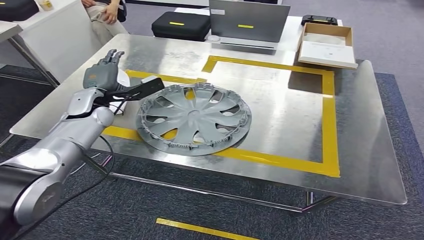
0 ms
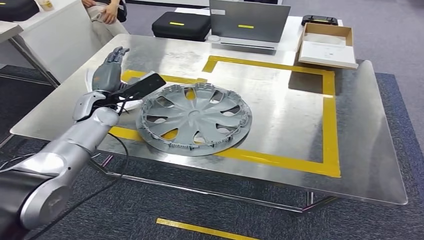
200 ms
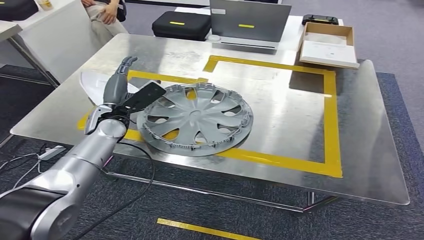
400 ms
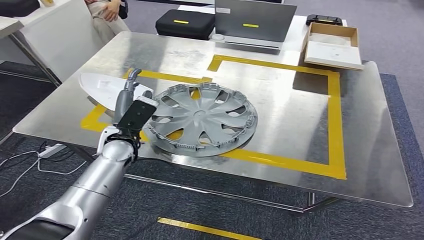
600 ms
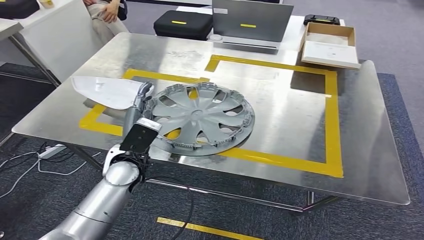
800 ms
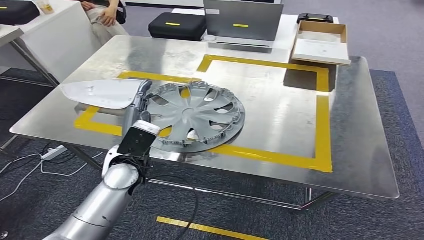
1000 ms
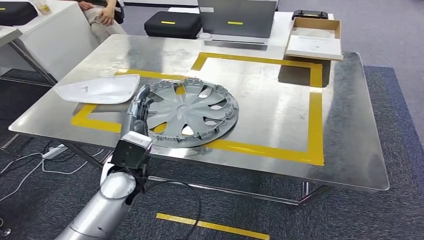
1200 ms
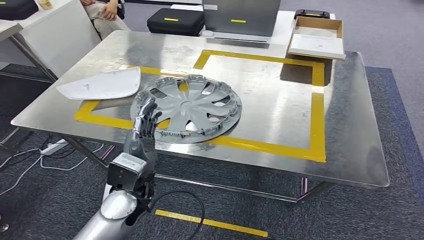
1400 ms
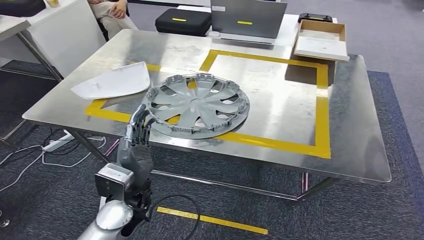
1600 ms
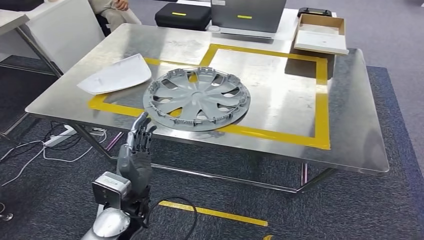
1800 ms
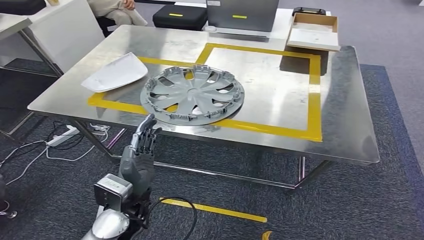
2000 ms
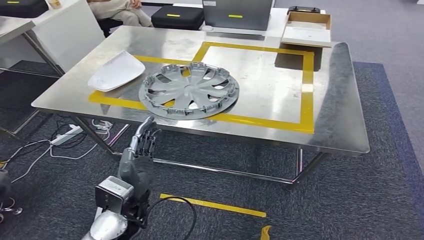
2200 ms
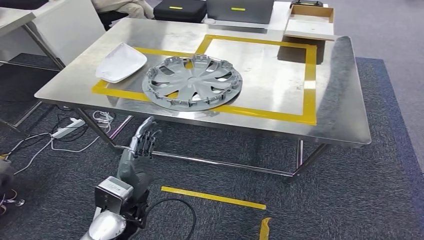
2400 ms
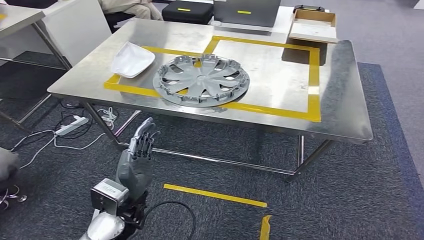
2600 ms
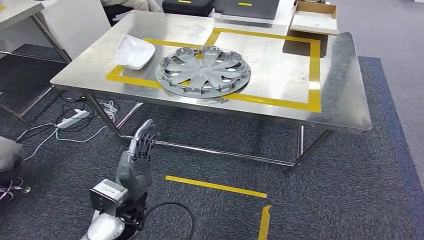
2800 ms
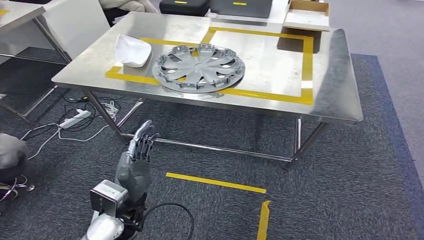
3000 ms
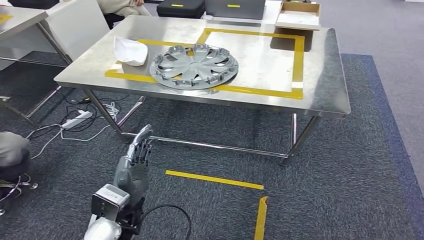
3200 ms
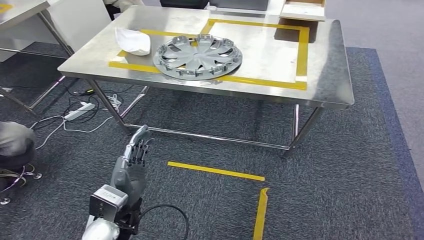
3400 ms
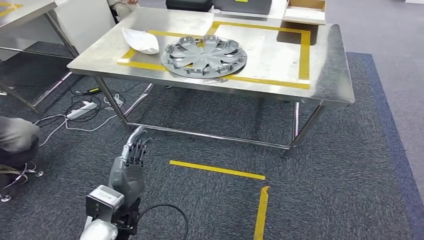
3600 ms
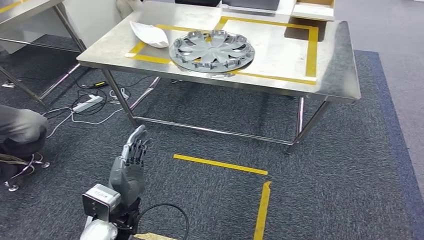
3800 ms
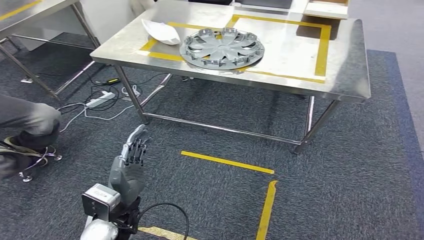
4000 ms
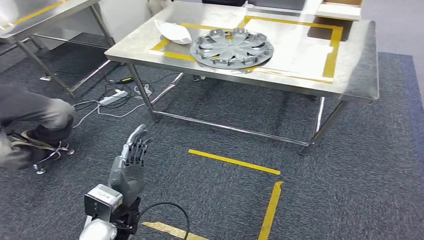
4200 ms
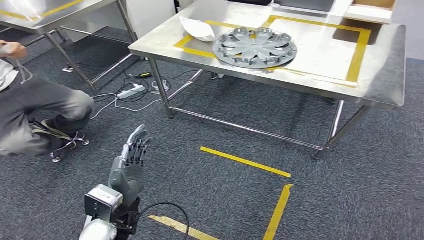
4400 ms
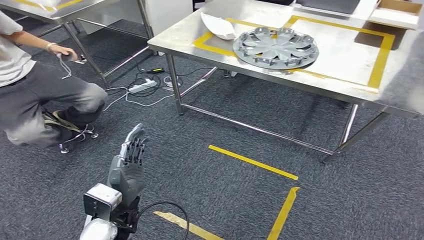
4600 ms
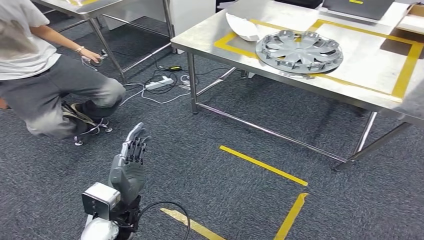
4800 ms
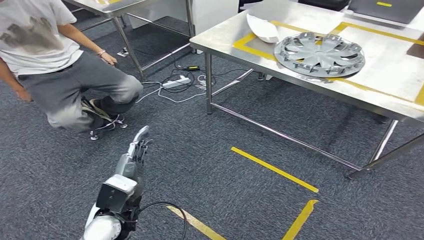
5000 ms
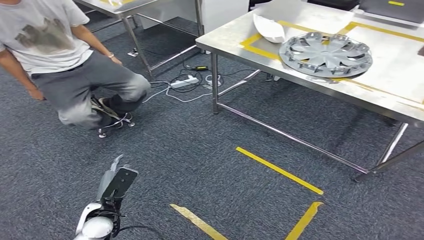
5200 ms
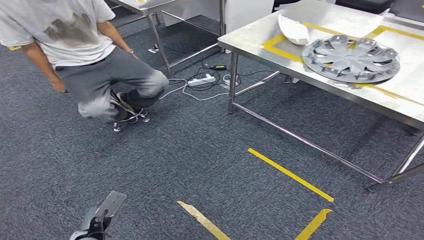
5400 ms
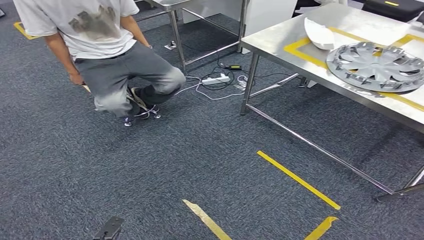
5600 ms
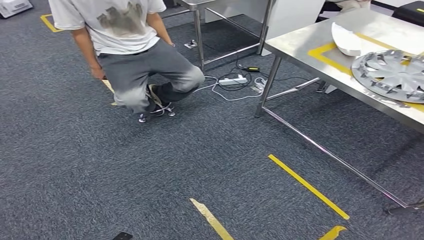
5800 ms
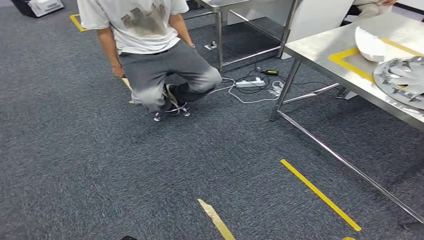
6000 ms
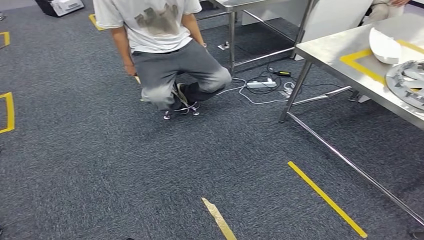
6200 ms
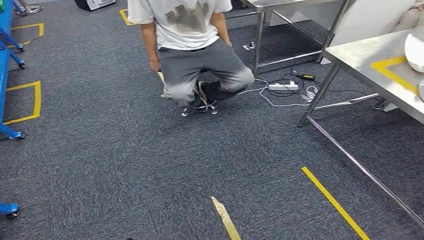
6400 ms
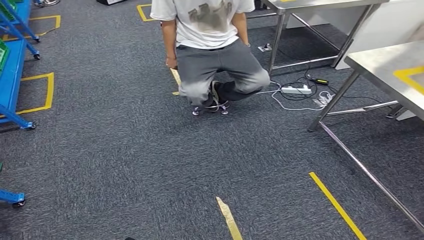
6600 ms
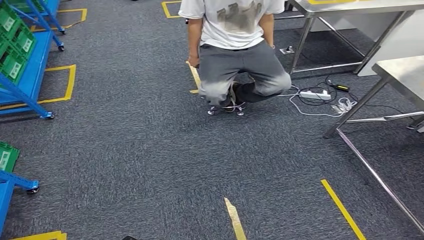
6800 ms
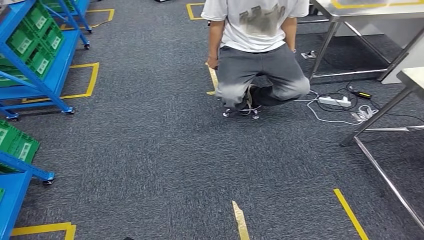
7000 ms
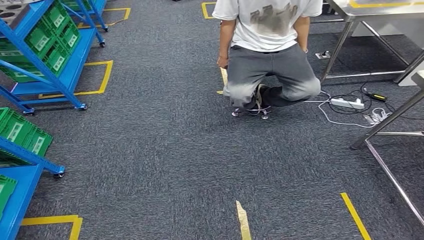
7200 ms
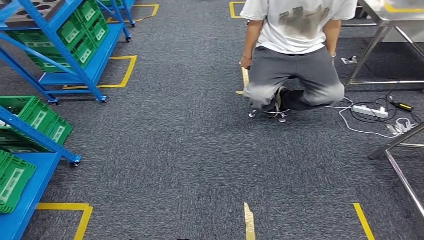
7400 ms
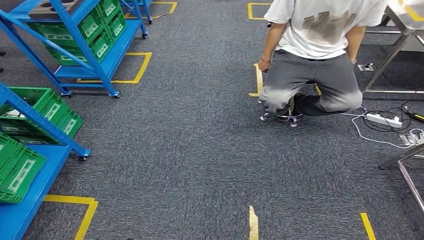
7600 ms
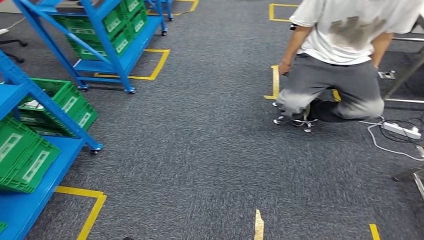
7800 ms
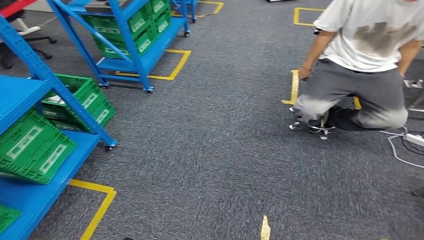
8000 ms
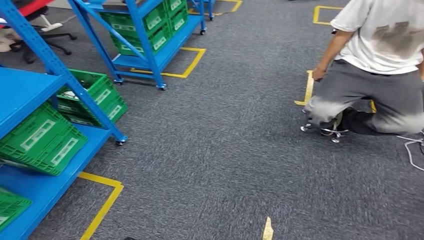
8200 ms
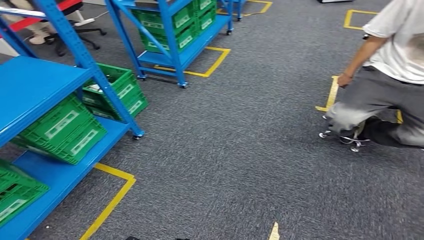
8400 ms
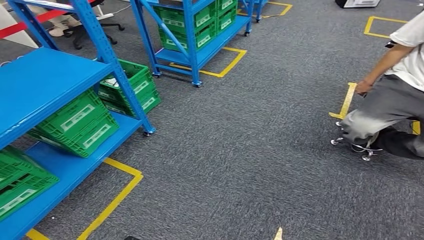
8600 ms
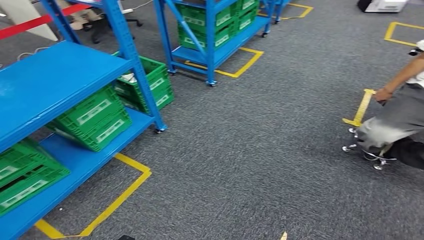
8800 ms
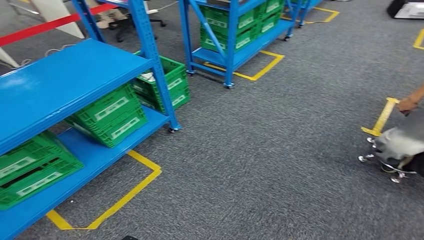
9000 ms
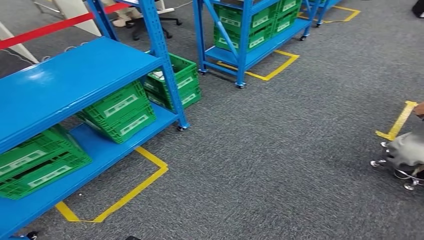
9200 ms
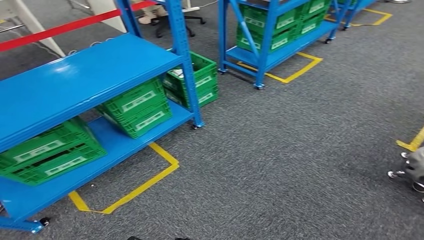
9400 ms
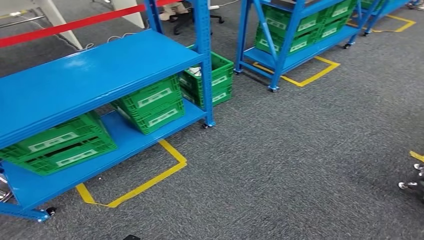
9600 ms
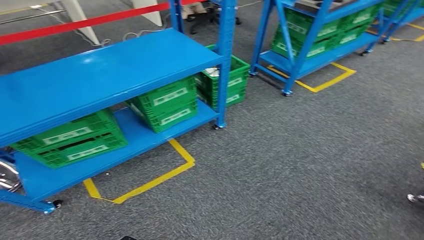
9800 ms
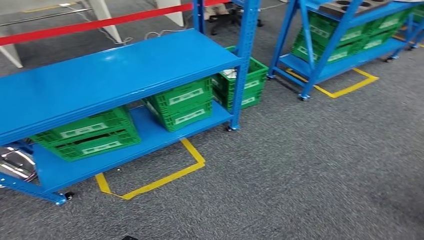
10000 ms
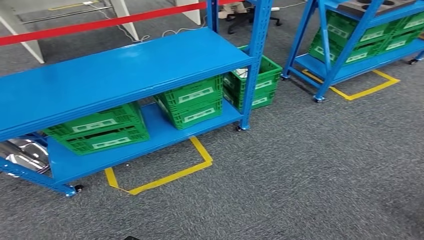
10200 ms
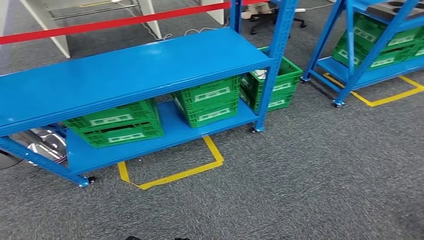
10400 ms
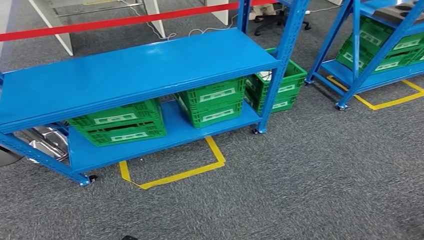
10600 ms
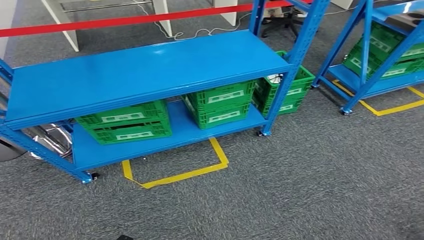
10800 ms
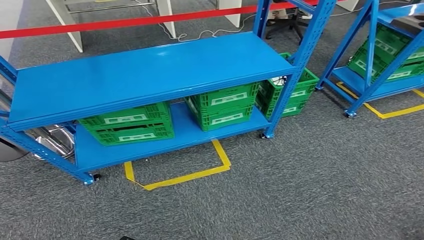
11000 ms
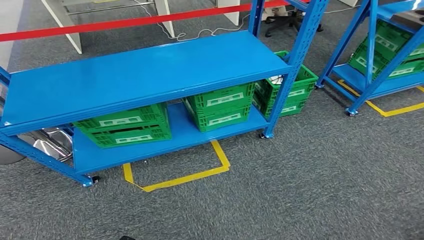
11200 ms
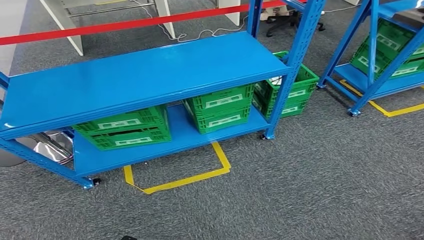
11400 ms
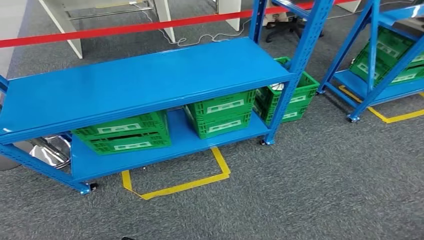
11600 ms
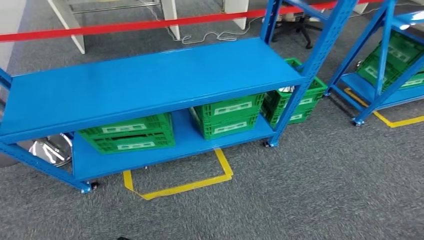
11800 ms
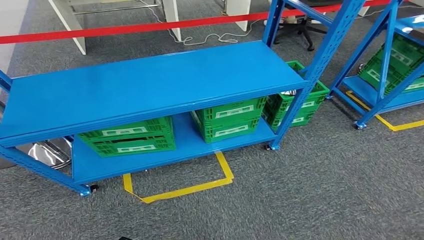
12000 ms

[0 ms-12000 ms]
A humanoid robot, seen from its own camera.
Step, 0 ms to 2800 ms: Insert the small parts into the corresponding holes on the workbench.

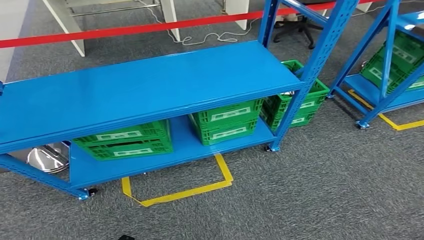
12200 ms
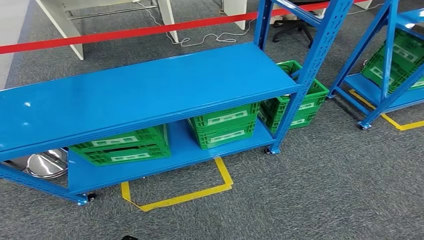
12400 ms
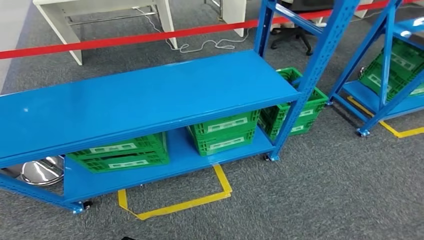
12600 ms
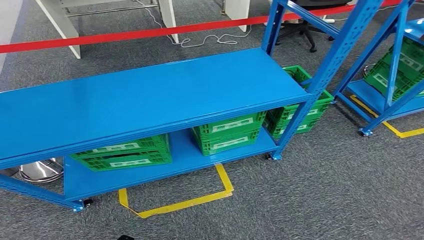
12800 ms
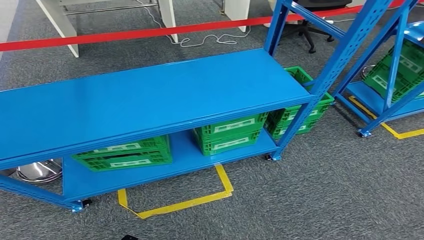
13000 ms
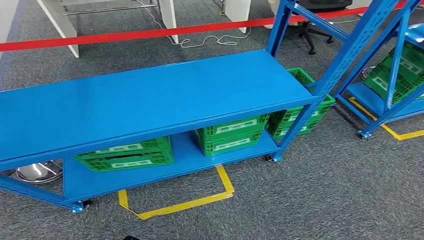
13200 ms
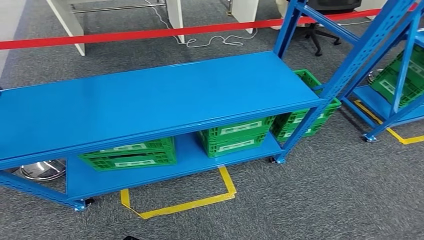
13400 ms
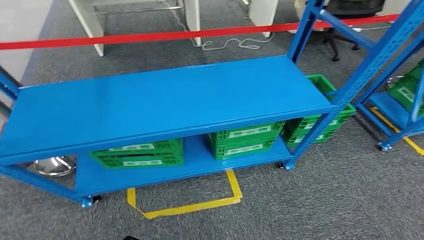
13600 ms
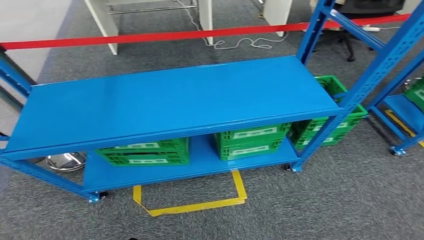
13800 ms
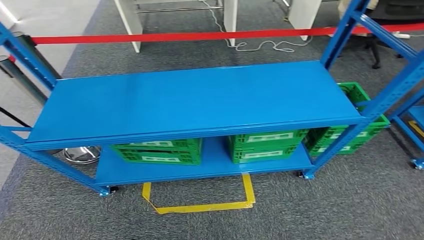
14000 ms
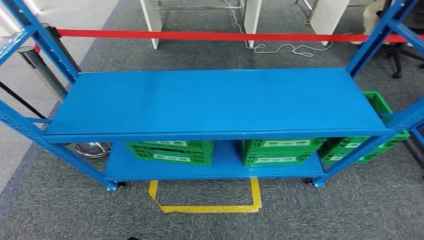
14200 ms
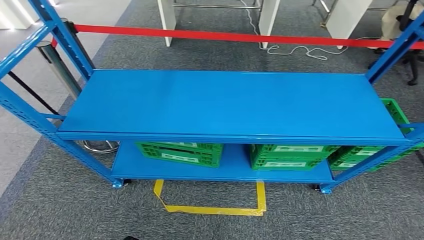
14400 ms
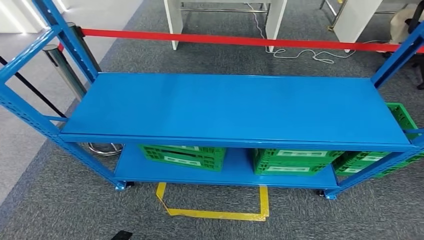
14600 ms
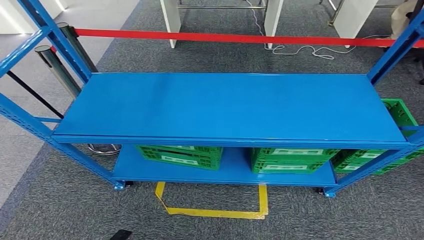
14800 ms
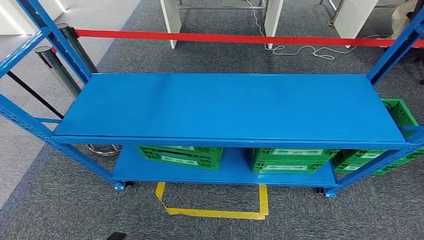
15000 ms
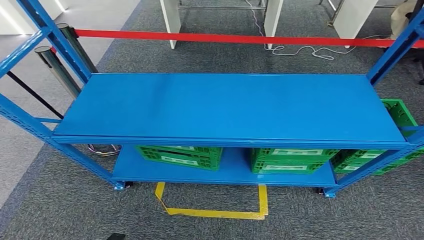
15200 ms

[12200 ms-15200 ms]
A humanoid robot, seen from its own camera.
Step, 12200 ms to 15200 ms: Move to the initial position of the workbench.
